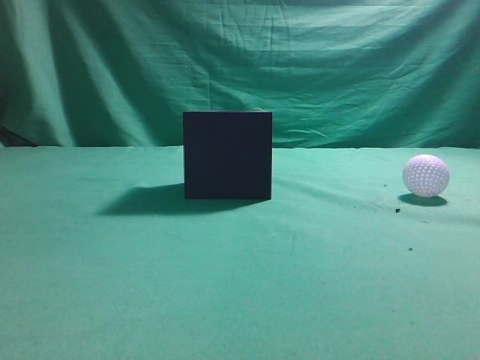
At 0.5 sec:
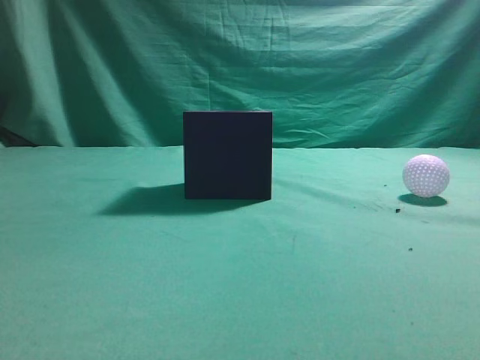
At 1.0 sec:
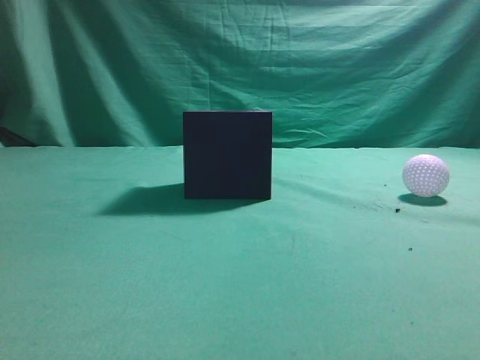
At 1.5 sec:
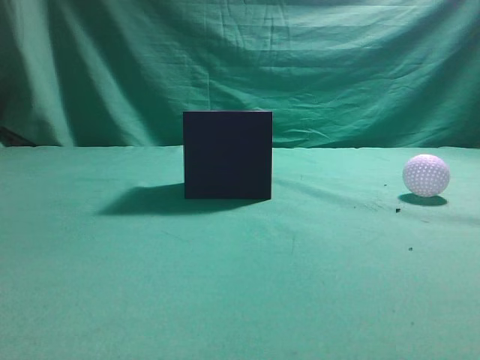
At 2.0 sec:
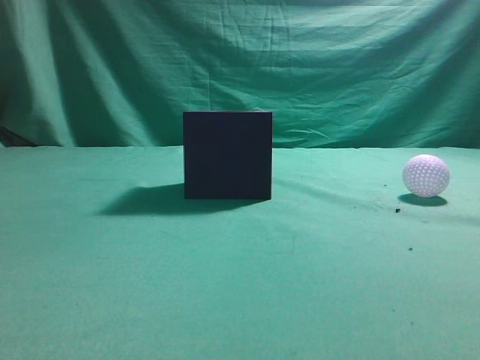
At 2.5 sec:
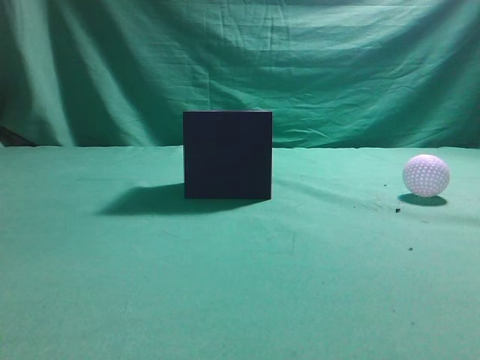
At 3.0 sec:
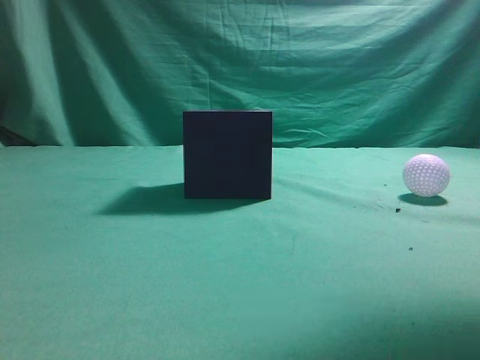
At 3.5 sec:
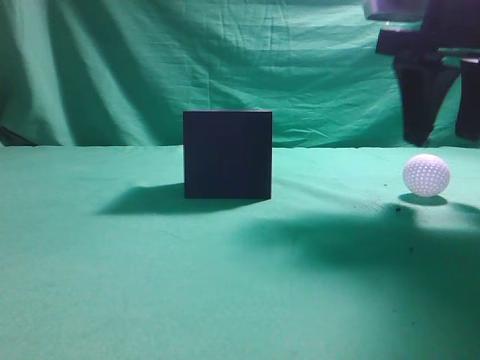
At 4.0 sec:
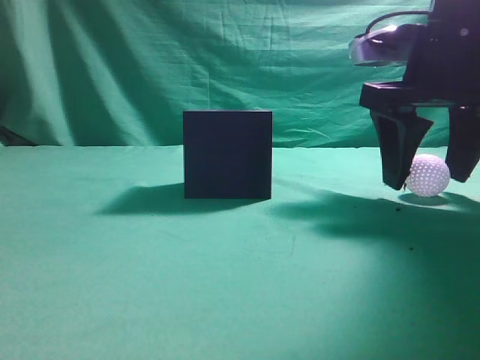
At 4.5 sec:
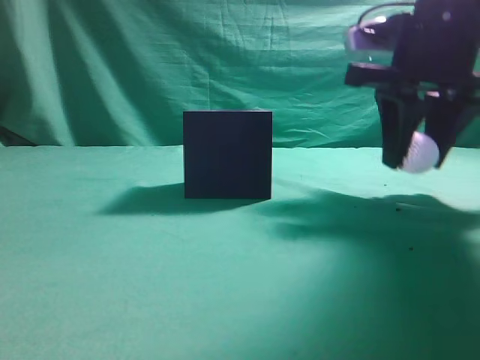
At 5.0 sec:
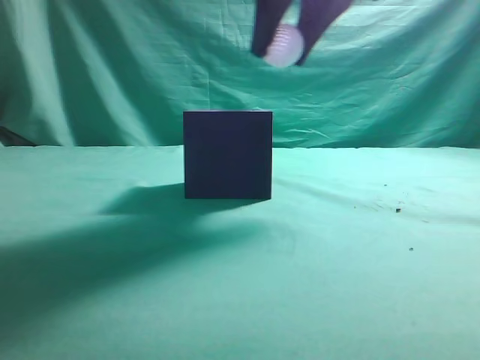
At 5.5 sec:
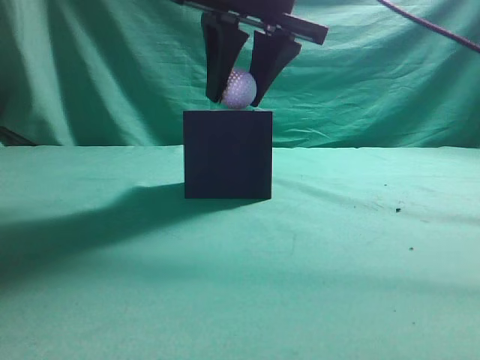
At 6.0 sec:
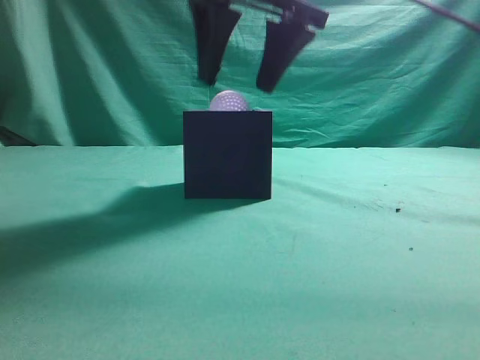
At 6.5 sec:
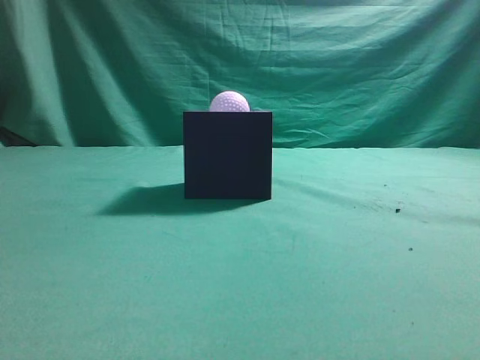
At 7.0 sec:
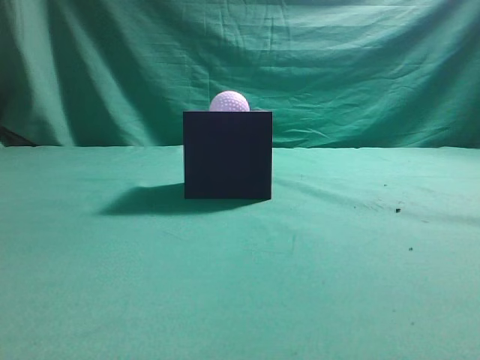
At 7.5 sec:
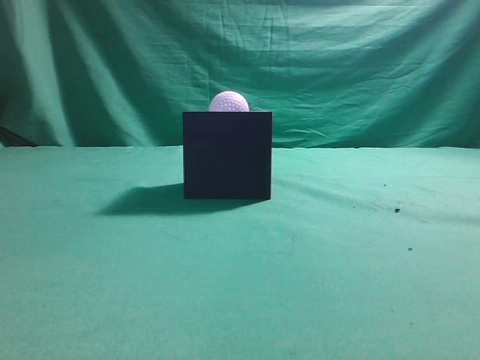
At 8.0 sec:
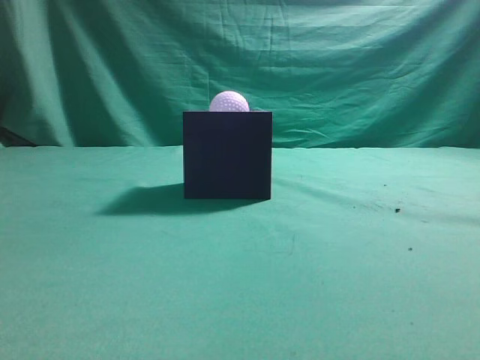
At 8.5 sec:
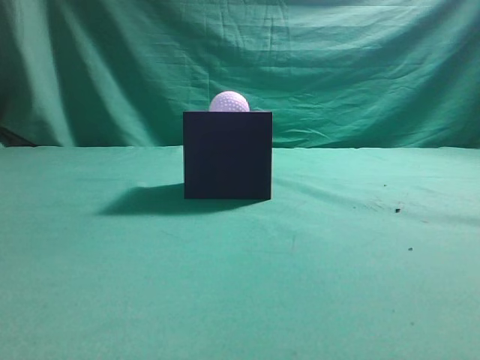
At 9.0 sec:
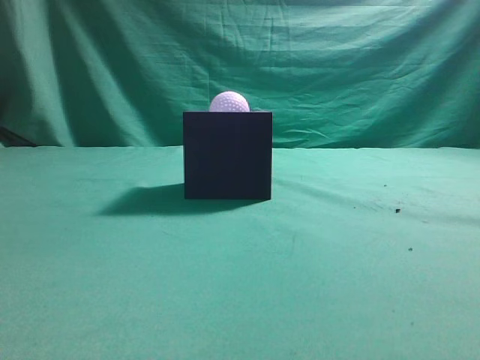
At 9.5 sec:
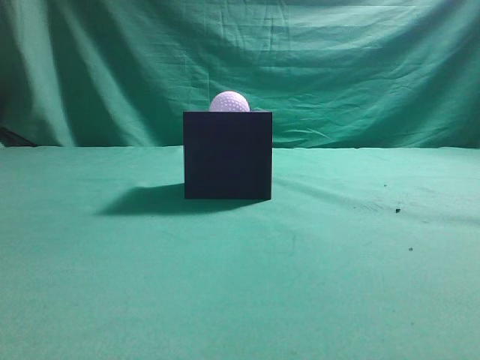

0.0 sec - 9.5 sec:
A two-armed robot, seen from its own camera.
Task of the whole recording: Pick up the ball and place it in the circular groove above the cube.
Step, 0.0 sec - 3.5 sec: Grasp the sphere on the table.
Step, 4.0 sec - 5.0 sec: Place the sphere into the sphere-shaped recess.
2.0 sec - 4.0 sec: The right gripper moves forward, approximately 25 cm, and opens.
4.0 sec - 5.5 sec: The right gripper is displaced to the left and upward by roughly 15 cm, and closes its fingers.
5.5 sec - 7.5 sec: The right gripper heads backward, to the right and upward, covering roughly 35 cm, and closes its fingers.
